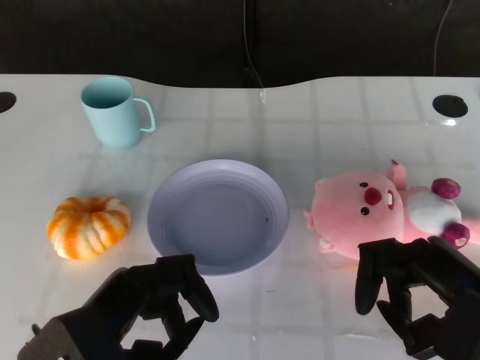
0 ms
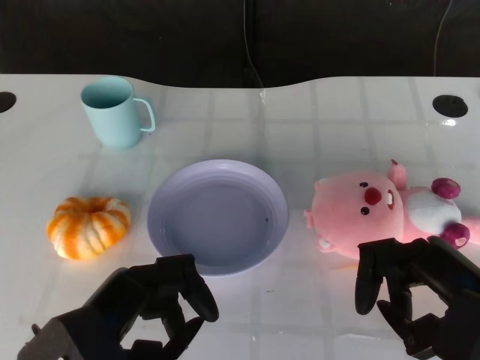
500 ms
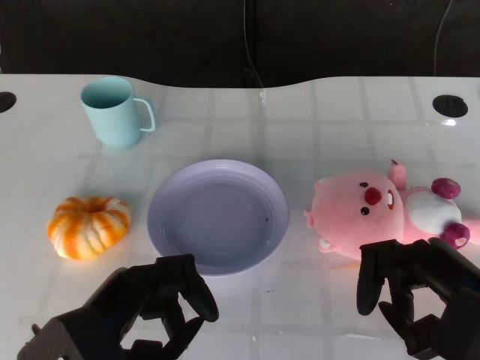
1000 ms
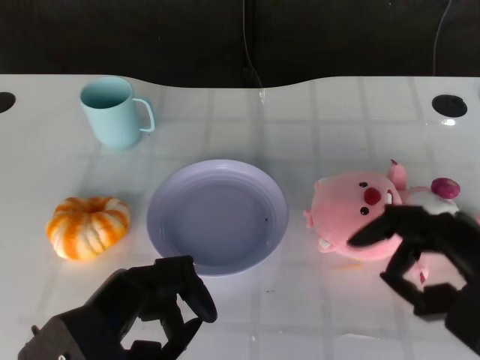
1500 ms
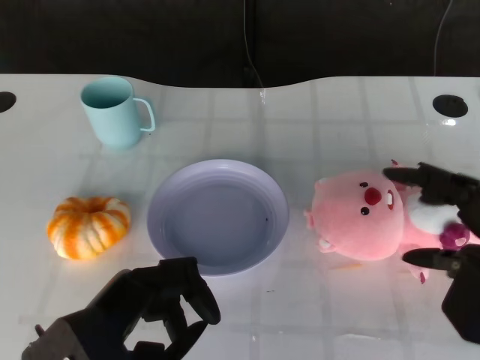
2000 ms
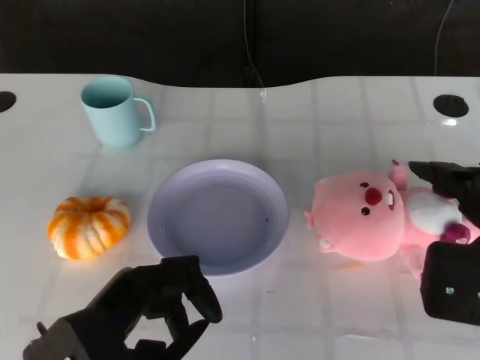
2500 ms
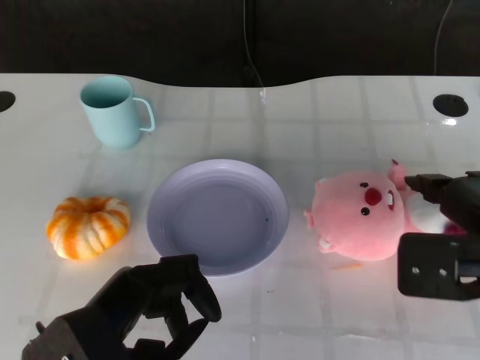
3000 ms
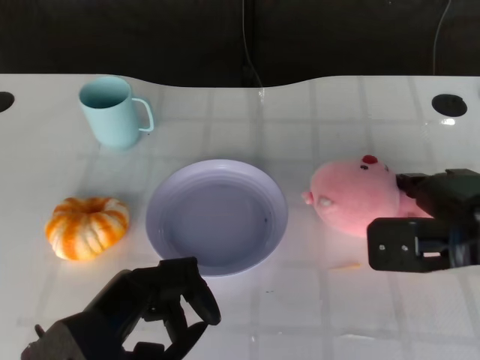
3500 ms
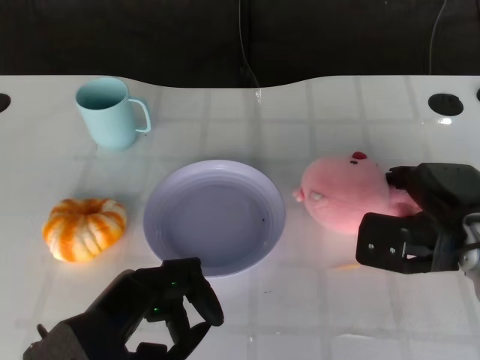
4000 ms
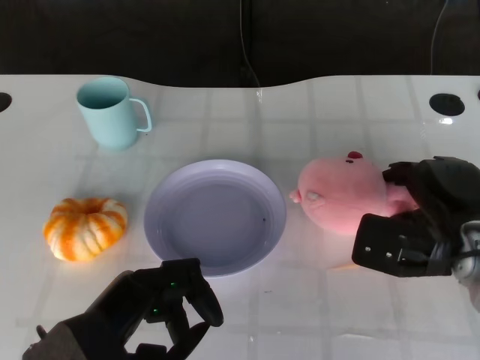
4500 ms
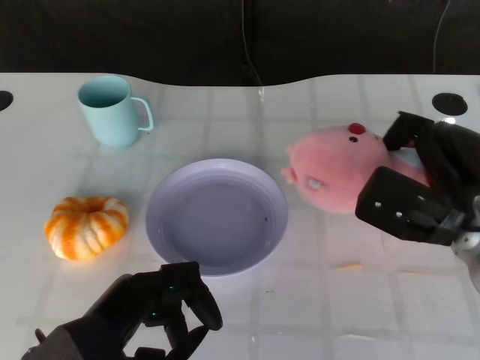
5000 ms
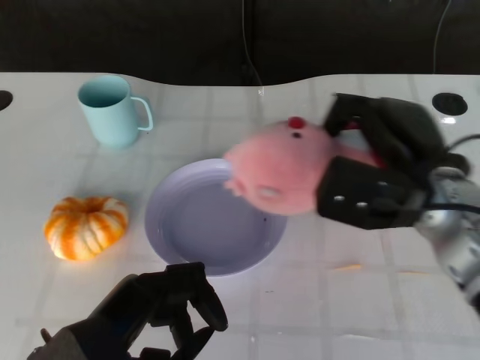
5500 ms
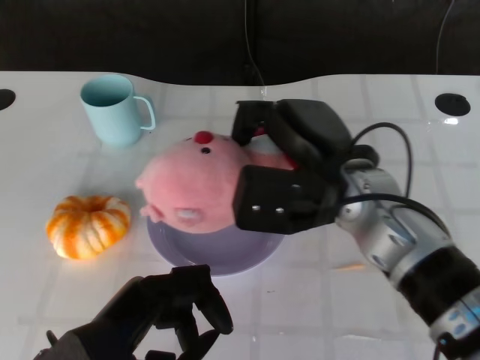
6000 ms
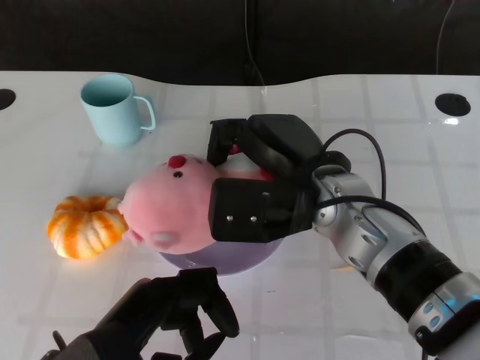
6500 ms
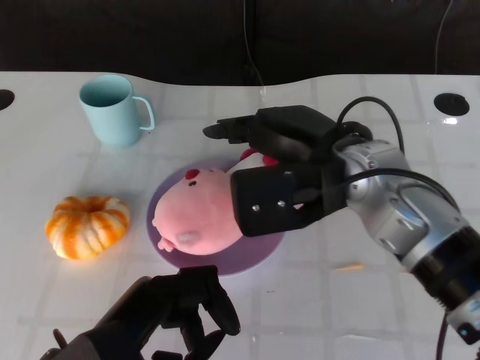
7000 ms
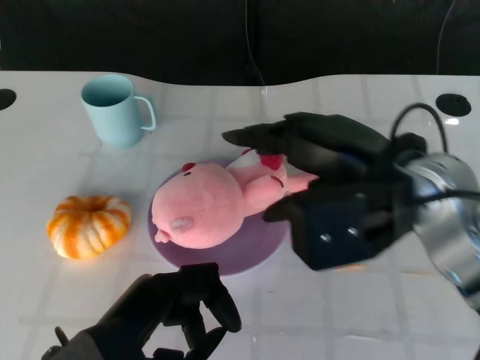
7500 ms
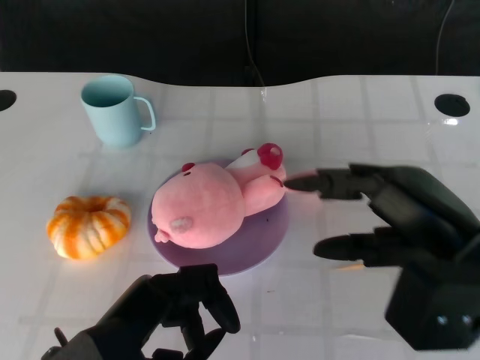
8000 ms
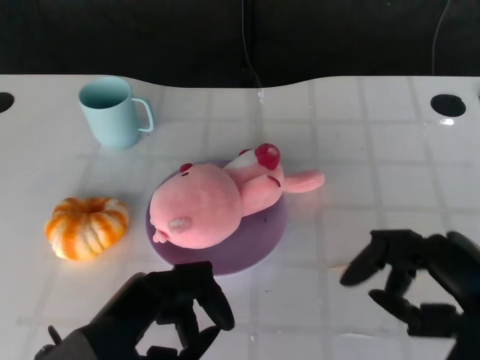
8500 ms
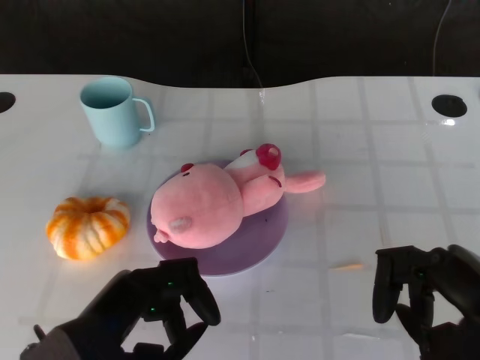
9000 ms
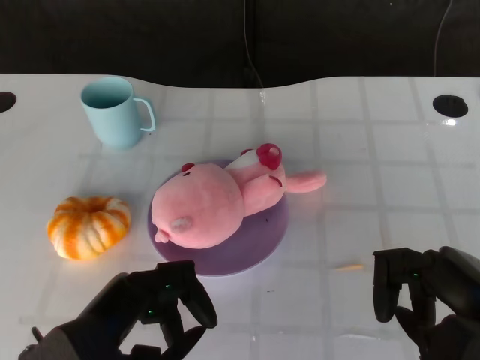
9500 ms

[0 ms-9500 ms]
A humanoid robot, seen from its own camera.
Task of the whole recording: Pick up the doll on the other side of the plate and place it into the plate.
Step, 1500 ms to 5000 ms: Grasp the pink doll with the right gripper.
Step, 5500 ms to 7000 ms: Place the pink doll into the plate with the right gripper.
2000 ms to 4000 ms: The right hand heads forward and downward, covering approximately 15 cm.
4000 ms to 5500 ms: The right hand moves upward and to the left, roughly 10 cm.
5500 ms to 7500 ms: The right hand heads upward, covering approximately 5 cm, and goes to the left and returns, about 10 cm each way.
7500 ms to 9500 ms: The right hand shifts about 15 cm backward, to the right and downward.

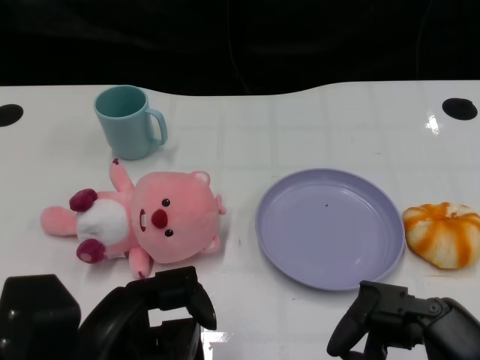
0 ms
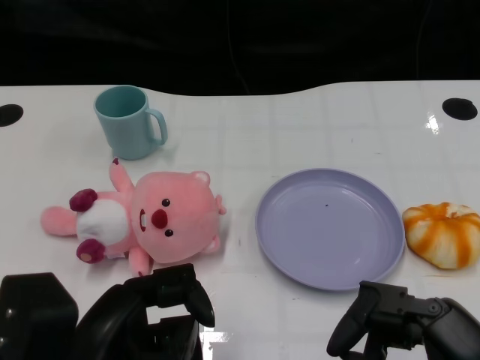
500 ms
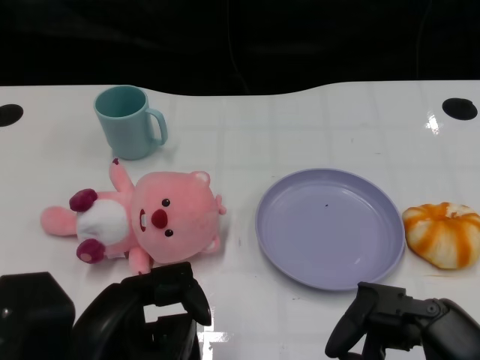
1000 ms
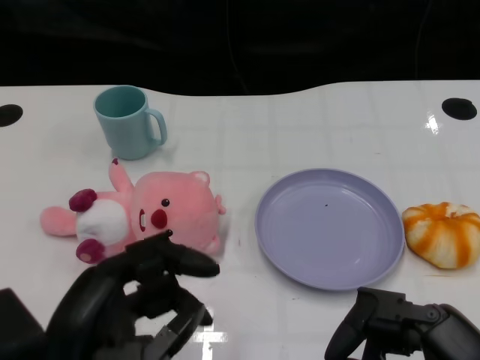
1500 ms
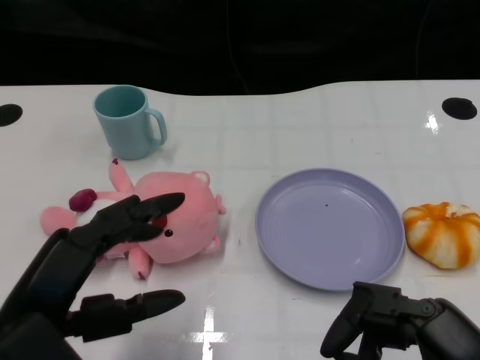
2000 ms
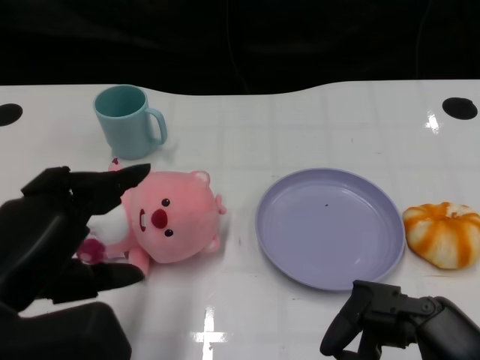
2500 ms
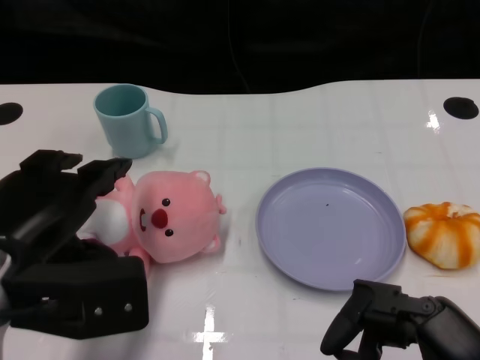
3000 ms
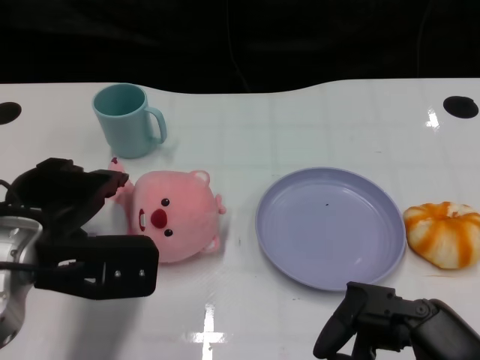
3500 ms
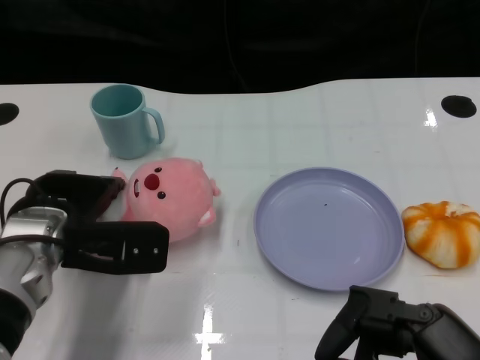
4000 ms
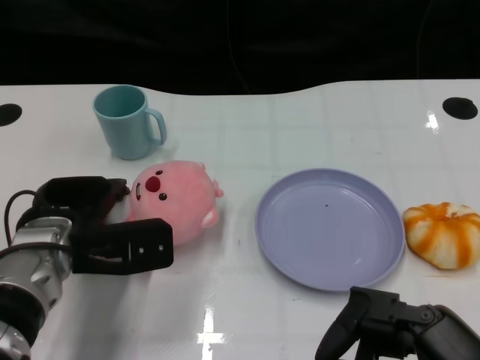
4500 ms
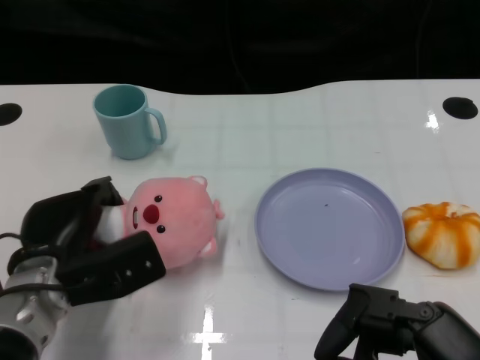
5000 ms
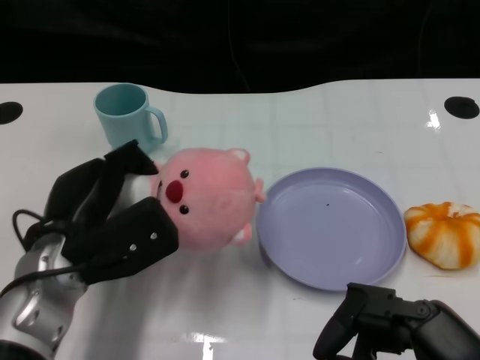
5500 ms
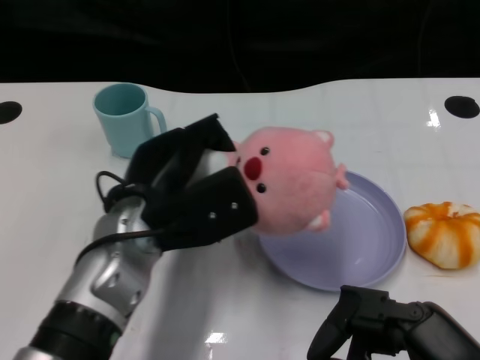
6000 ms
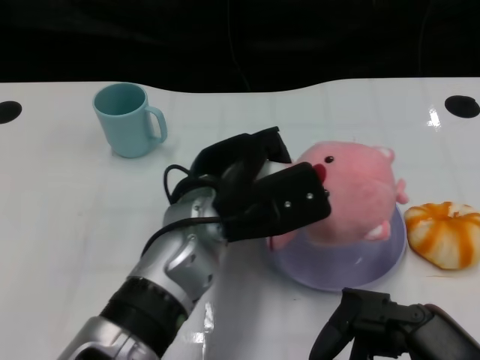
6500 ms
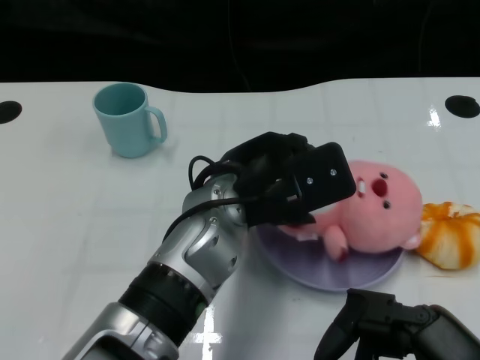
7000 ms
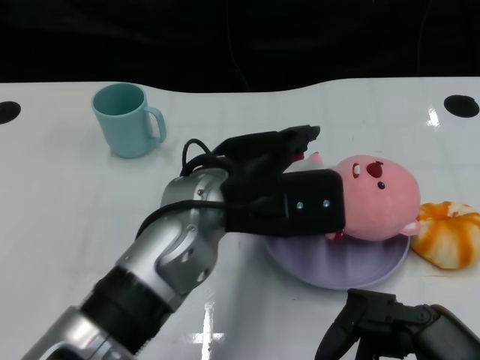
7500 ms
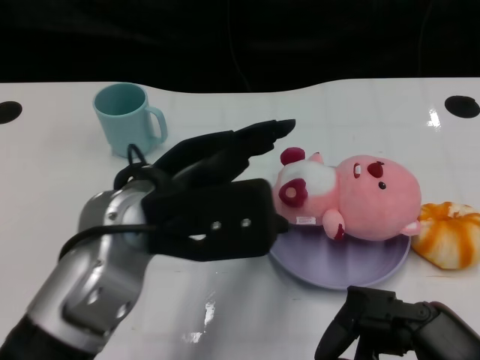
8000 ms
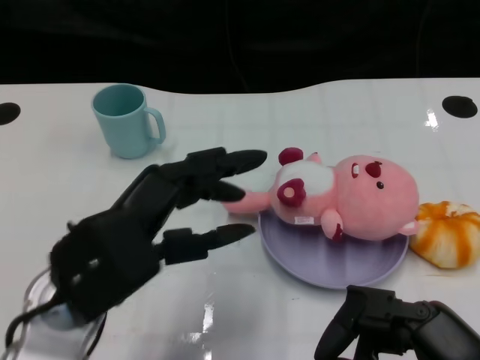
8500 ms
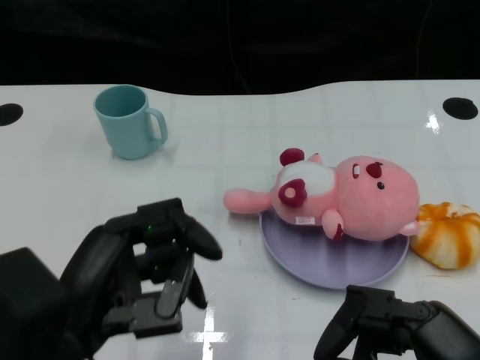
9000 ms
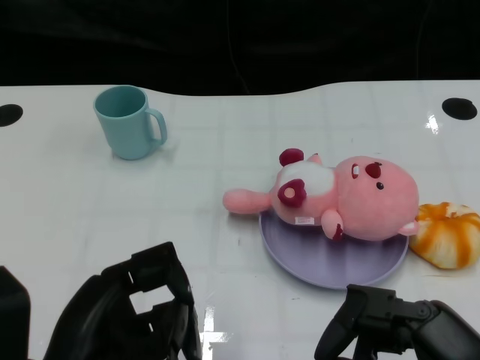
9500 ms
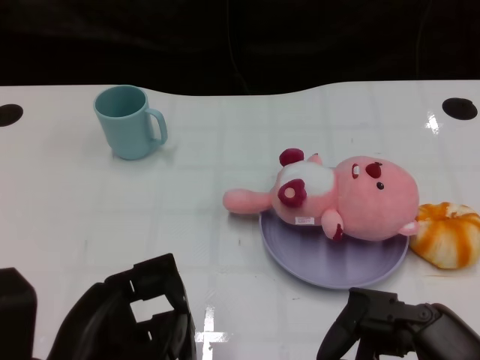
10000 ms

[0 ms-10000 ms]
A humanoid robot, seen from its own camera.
Task of the whole recording: Pick up the doll on one side of the plate and place it into the plate.
Step, 1500 ms to 5000 ms: Grasp the pink doll with the left gripper.
Step, 5500 ms to 7000 ms: Place the pink doll into the plate with the left gripper.
2000 ms to 4000 ms: The left hand goes roughly 15 cm forward.
4000 ms to 6000 ms: The left hand is displaced to the right by approximately 10 cm.
6000 ms to 8000 ms: The left hand heads upward, covering about 5 cm, and travels to the right and back again, some 10 cm each way.
8000 ms to 10000 ms: The left hand heads backward, to the left and downward, covering some 15 cm.

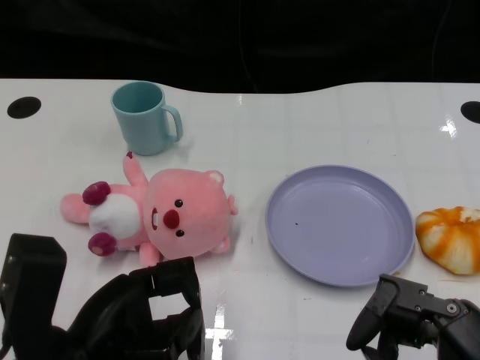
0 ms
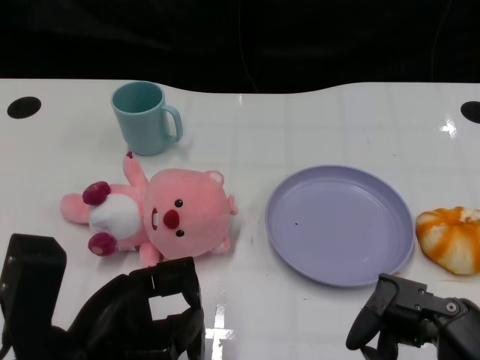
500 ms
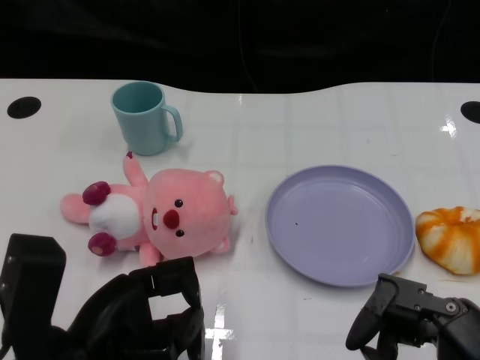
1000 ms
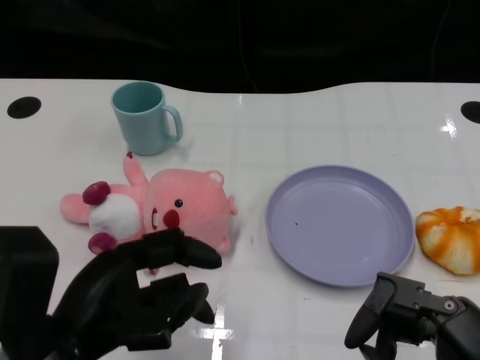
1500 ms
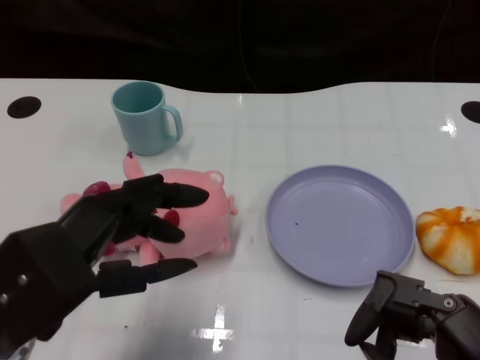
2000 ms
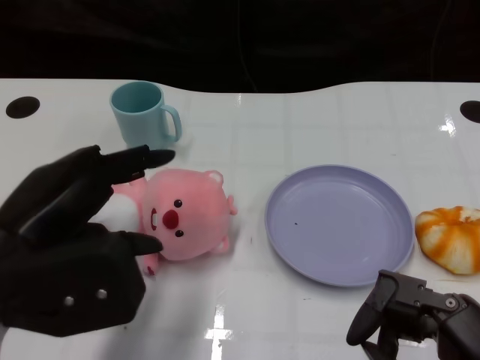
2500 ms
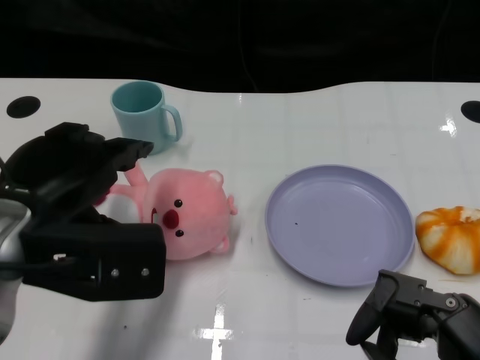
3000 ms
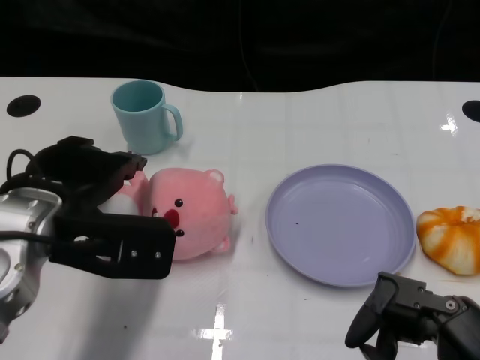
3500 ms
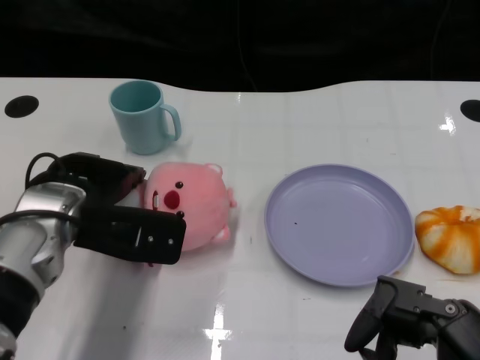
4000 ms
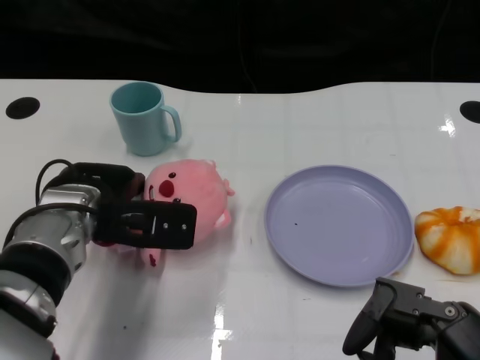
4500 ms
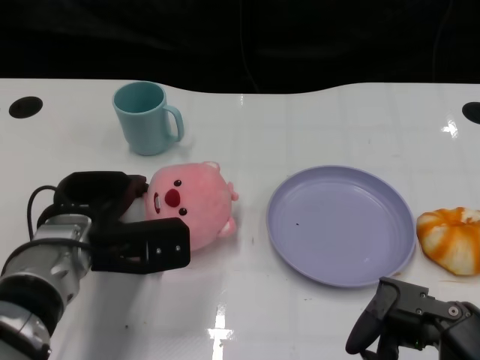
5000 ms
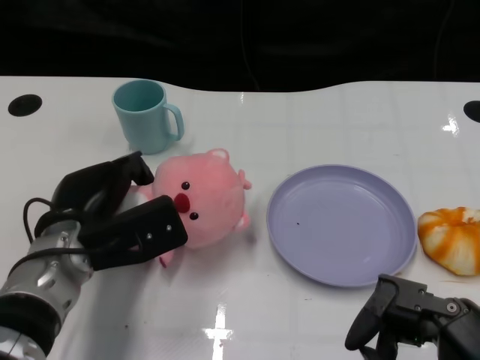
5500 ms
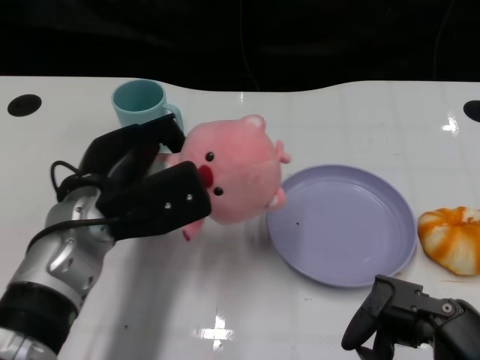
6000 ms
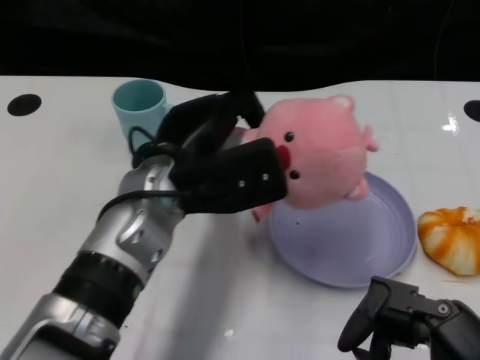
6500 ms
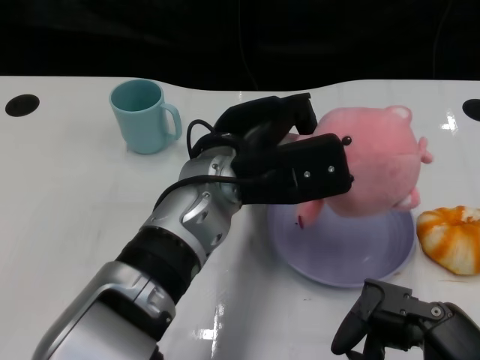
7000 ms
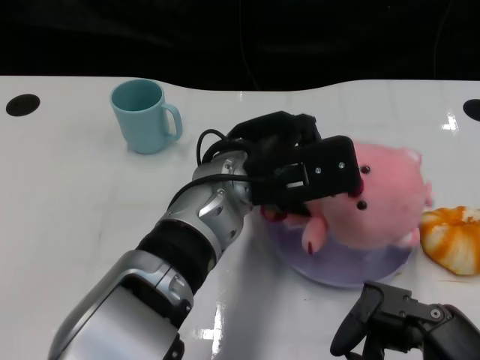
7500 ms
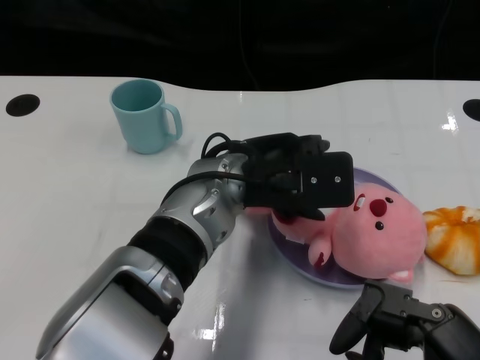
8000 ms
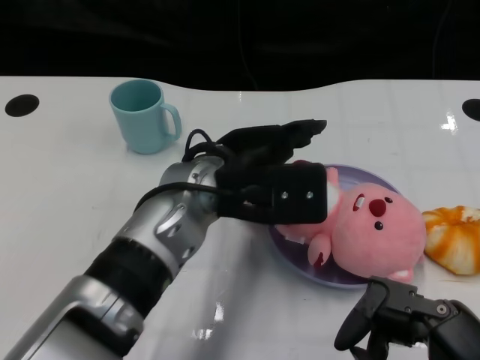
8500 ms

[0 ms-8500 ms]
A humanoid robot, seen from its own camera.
Task of the whole recording: Pick up the doll on one side of the plate and place it into the plate.
Step, 1500 ms to 5000 ms: Grasp the pink doll with the left gripper.
Step, 5500 ms to 8500 ms: Place the pink doll into the plate with the left gripper.
2000 ms to 4000 ms: The left hand goes approximately 15 cm forward.
4000 ms to 6500 ms: The left hand goes about 10 cm to the right.
